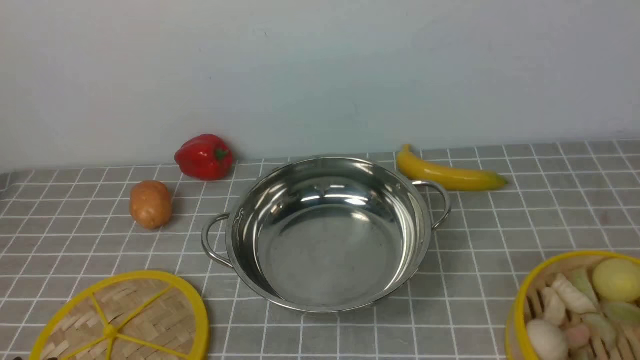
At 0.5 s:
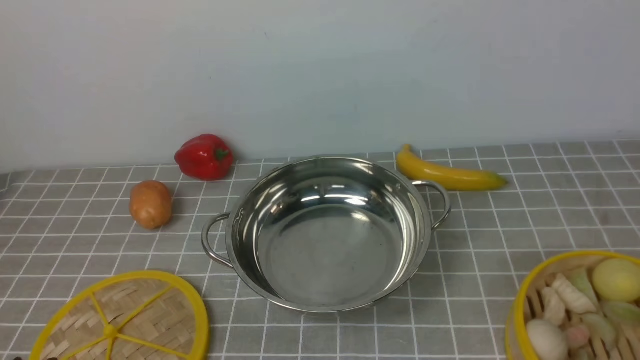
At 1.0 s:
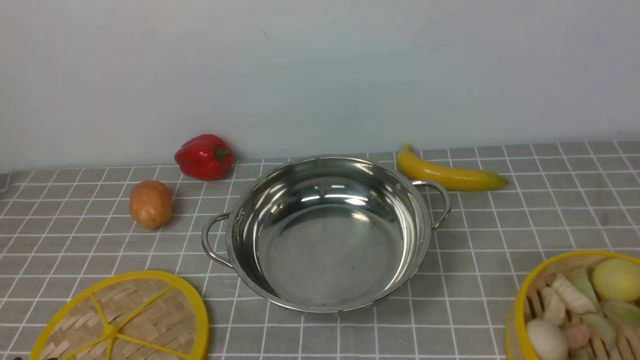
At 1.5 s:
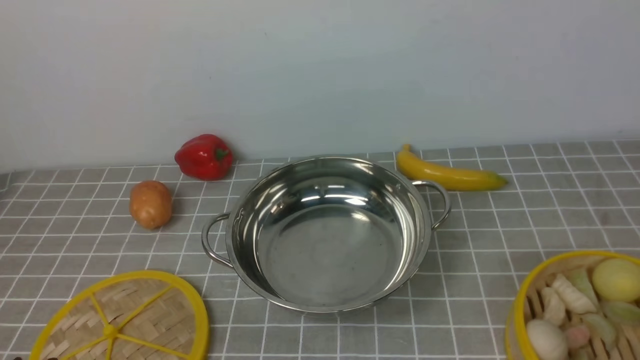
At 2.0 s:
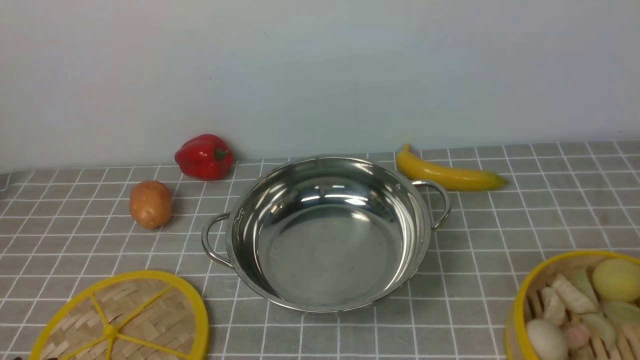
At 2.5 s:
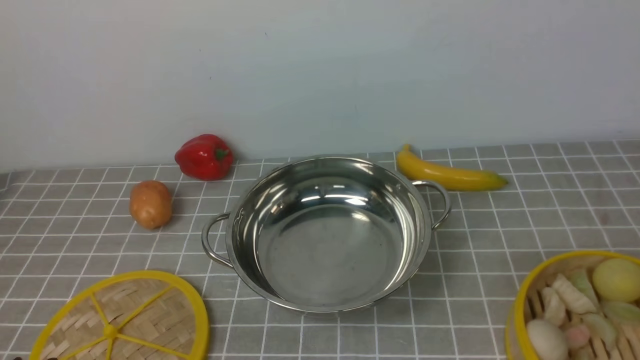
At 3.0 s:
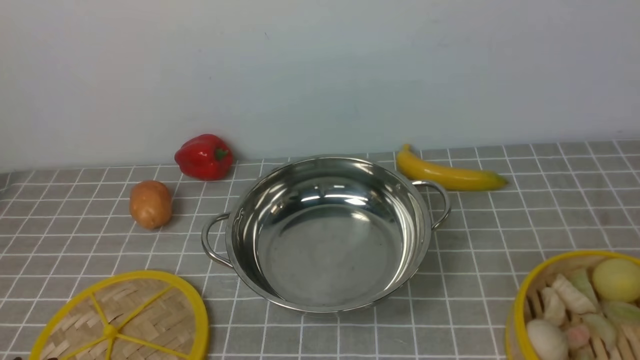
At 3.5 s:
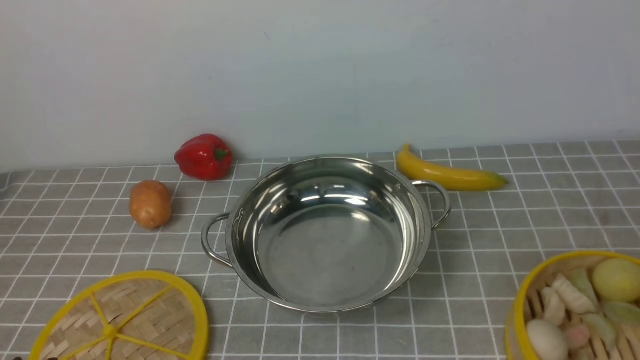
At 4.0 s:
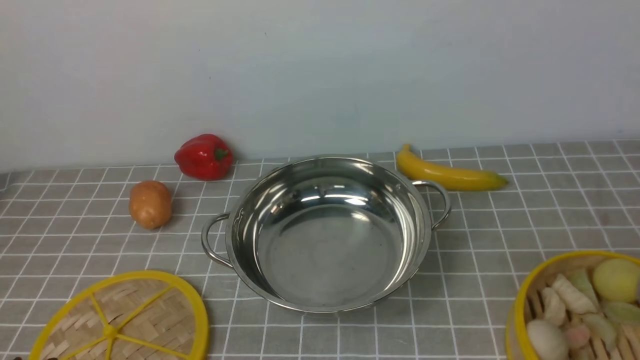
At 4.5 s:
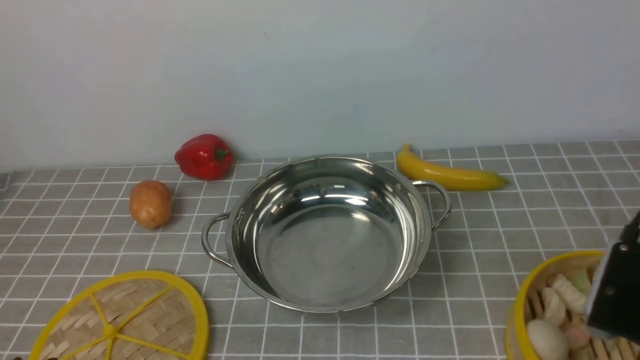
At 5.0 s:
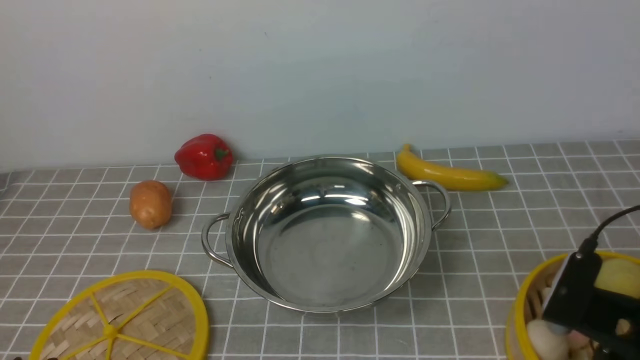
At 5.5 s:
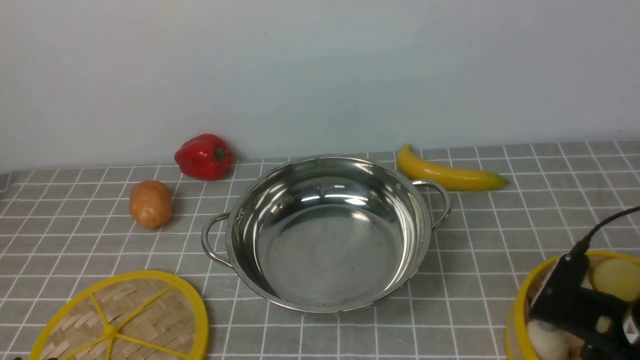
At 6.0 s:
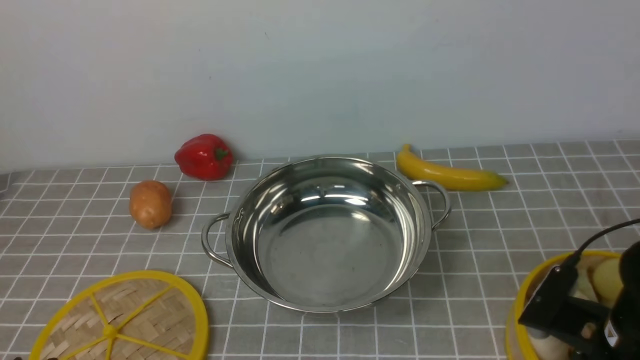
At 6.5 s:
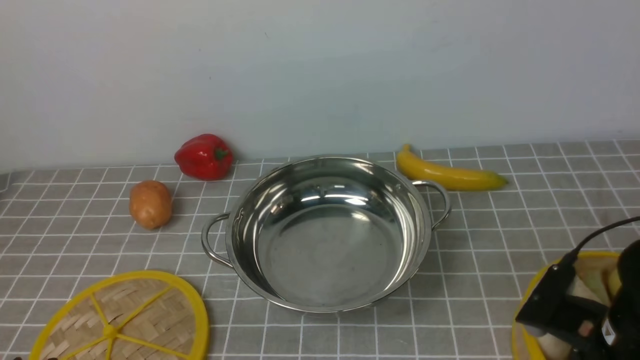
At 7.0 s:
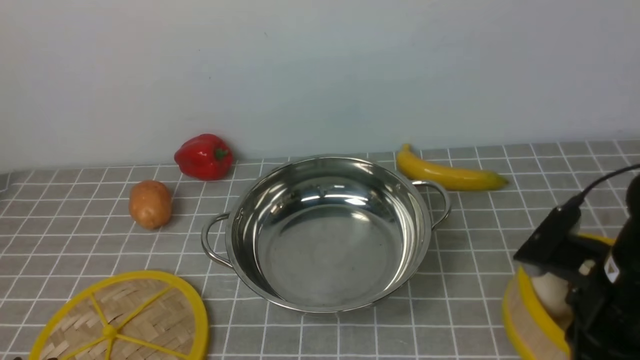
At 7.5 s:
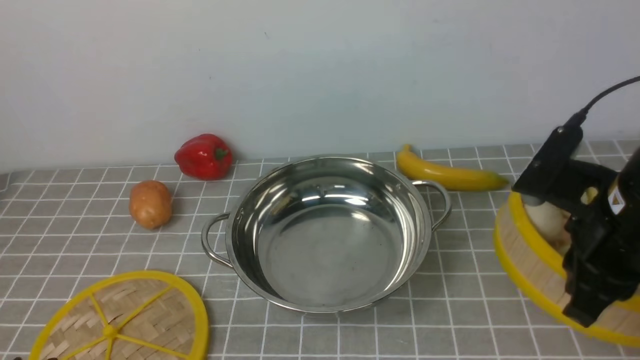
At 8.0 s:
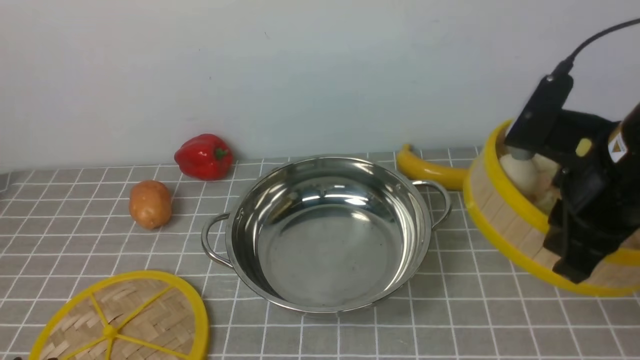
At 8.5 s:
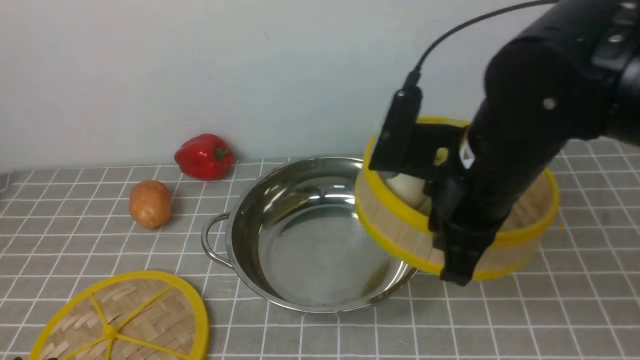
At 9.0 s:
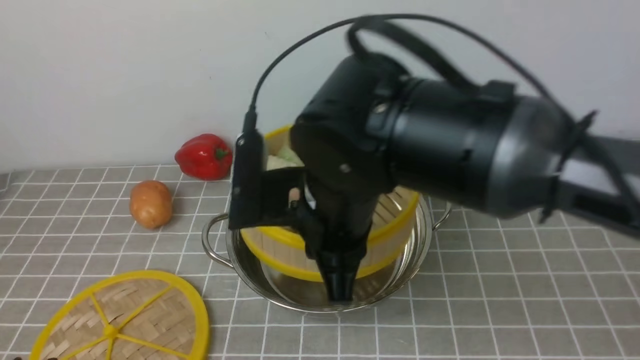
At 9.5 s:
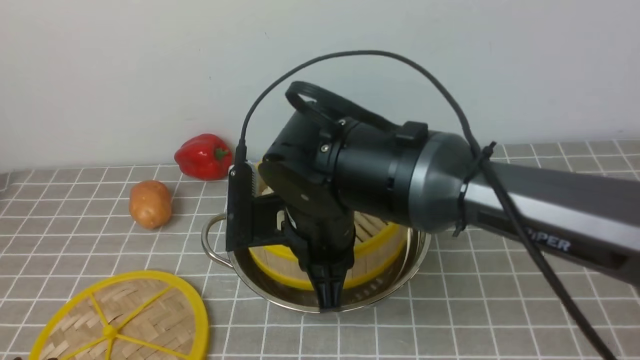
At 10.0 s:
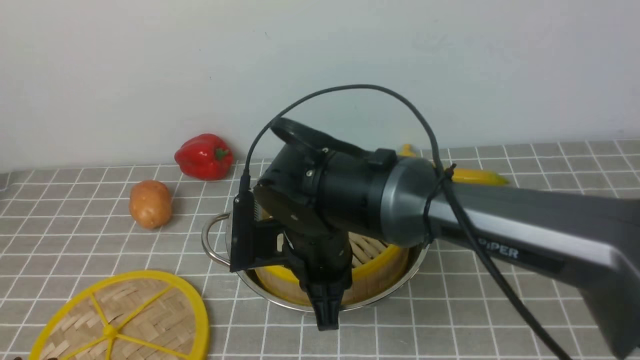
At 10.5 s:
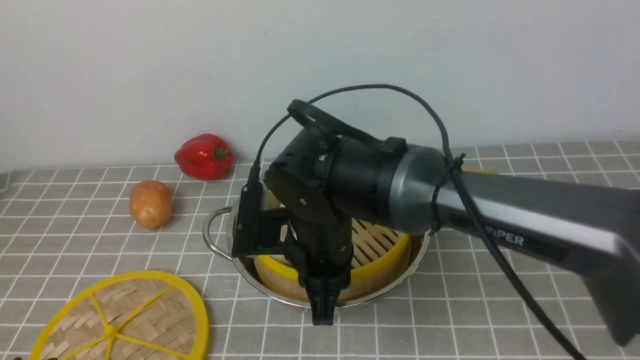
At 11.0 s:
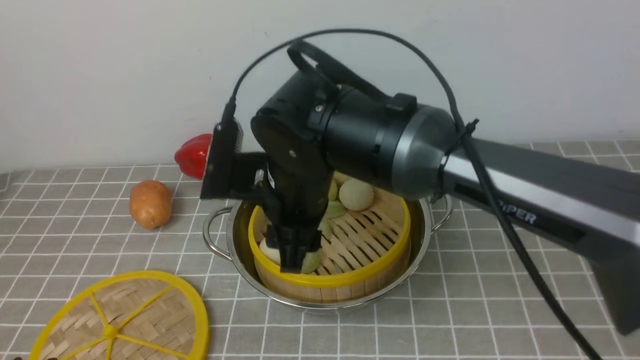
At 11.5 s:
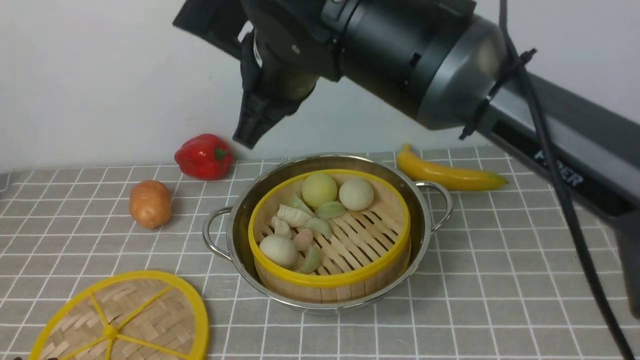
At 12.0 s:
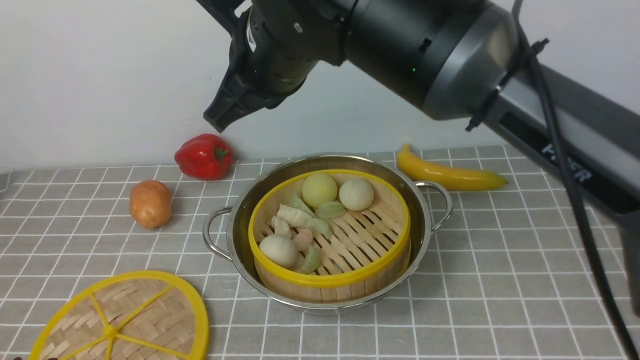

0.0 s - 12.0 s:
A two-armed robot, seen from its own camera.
Task of the whole recording: place the steamer in the pot on the grey tablecloth, and put the lid on the steamer.
Step, 0.0 s - 6.5 s: use the right arm to lift the steamer closest to it.
Step, 7.5 s - 10.5 s: use the right arm to put the steamer into the iron steamer pot in the middle.
4.0 s - 6.0 s: The right gripper heads downward and forward, covering approximately 10 cm.
6.0 s - 8.0 s: The right gripper travels upward and forward by roughly 15 cm, and closes its fingers.
8.0 s - 10.0 s: The right gripper heads to the left and downward, covering approximately 25 cm.
10.0 s - 12.0 s: The right gripper moves upward, some 15 cm, and opens and closes again.

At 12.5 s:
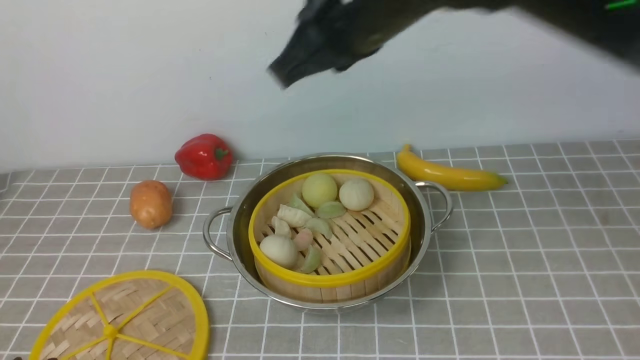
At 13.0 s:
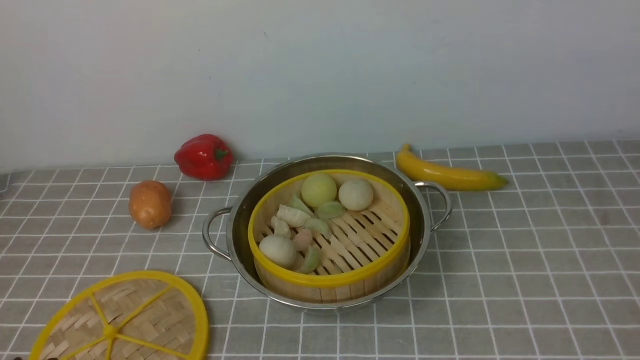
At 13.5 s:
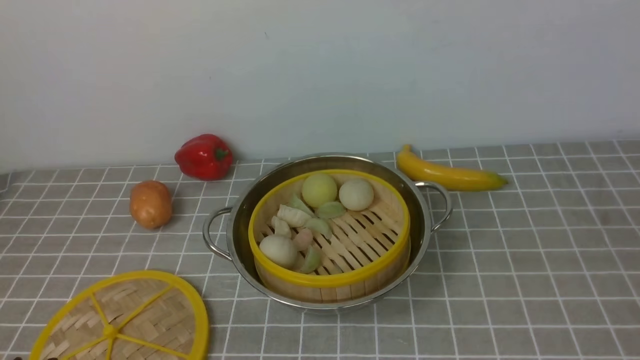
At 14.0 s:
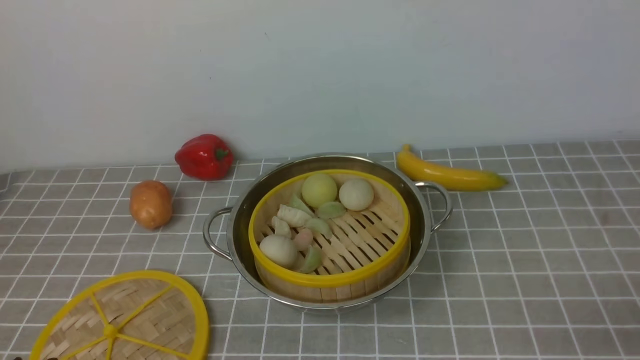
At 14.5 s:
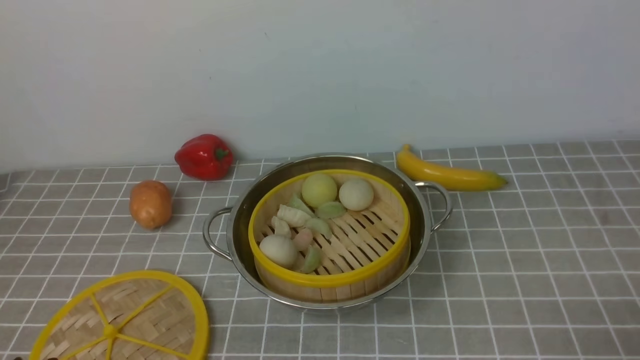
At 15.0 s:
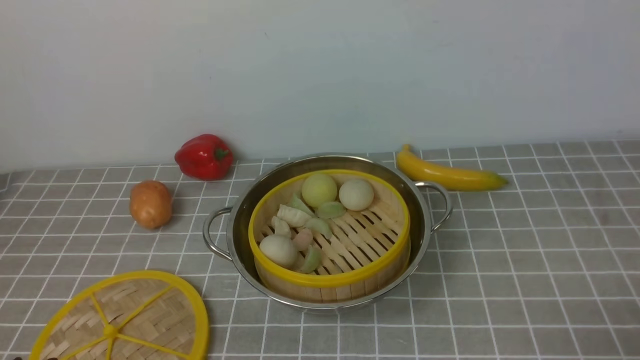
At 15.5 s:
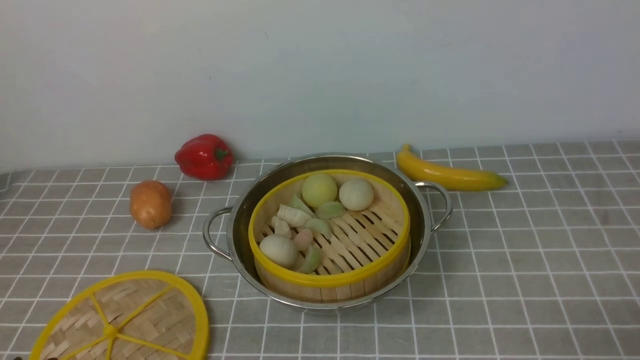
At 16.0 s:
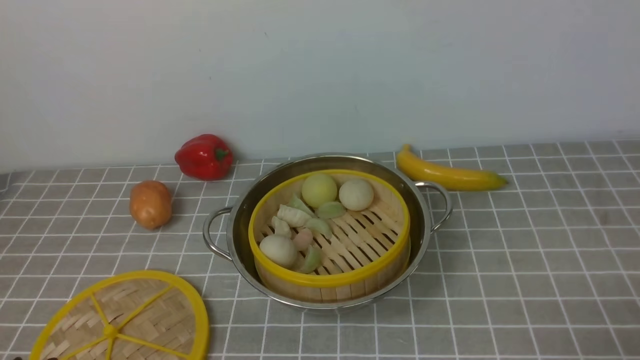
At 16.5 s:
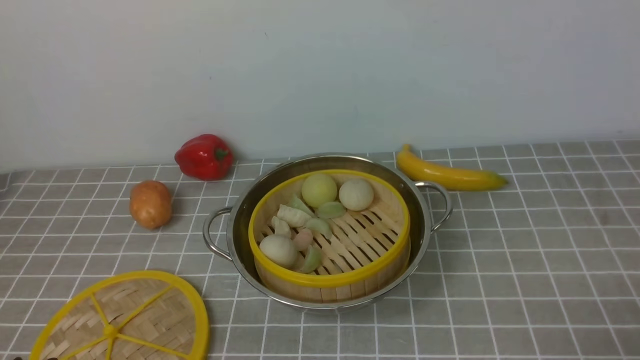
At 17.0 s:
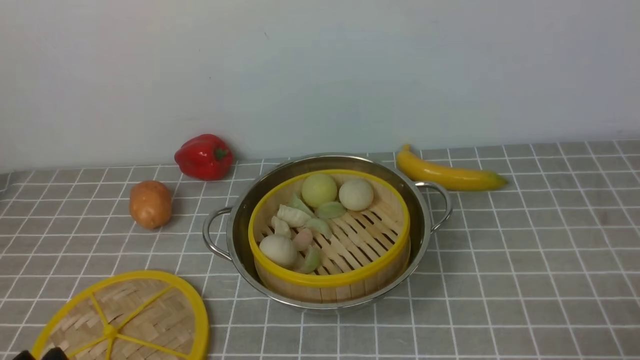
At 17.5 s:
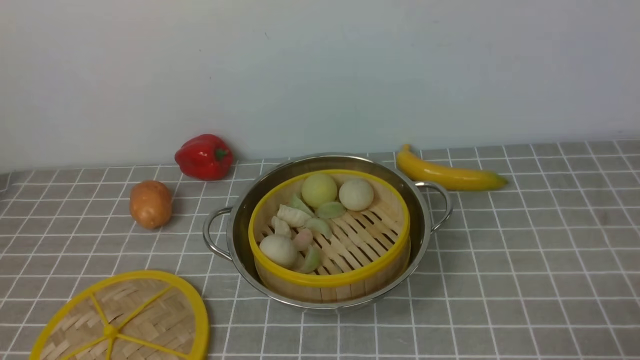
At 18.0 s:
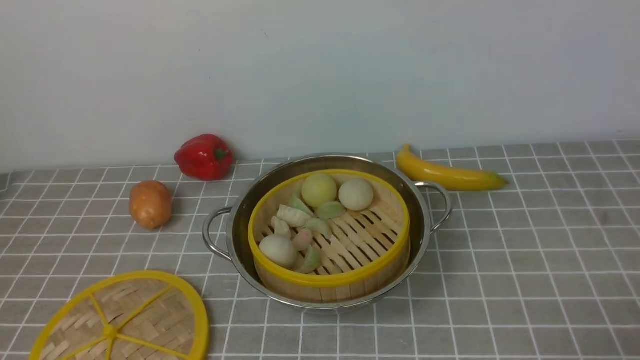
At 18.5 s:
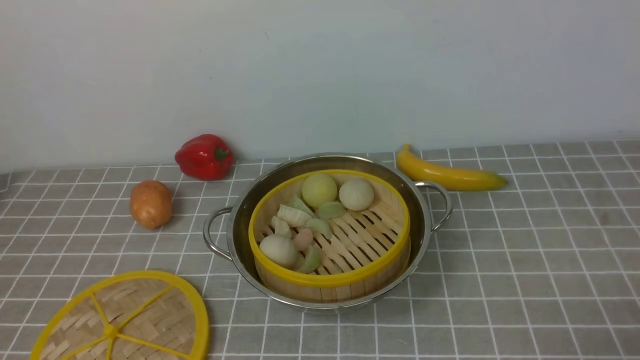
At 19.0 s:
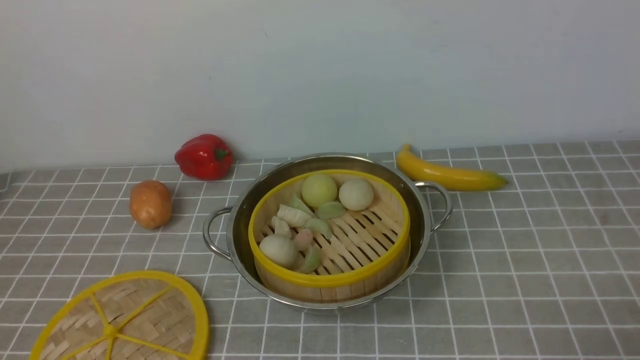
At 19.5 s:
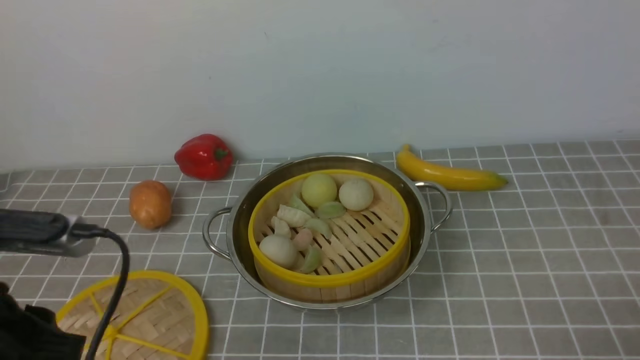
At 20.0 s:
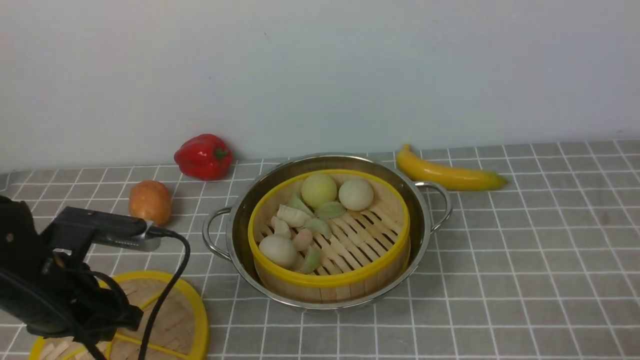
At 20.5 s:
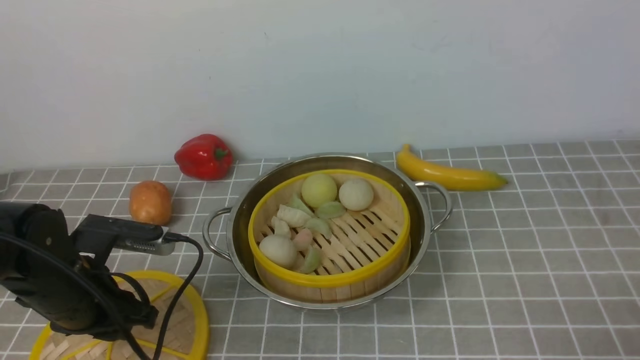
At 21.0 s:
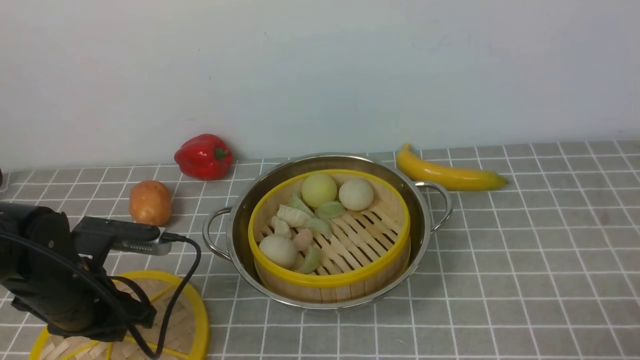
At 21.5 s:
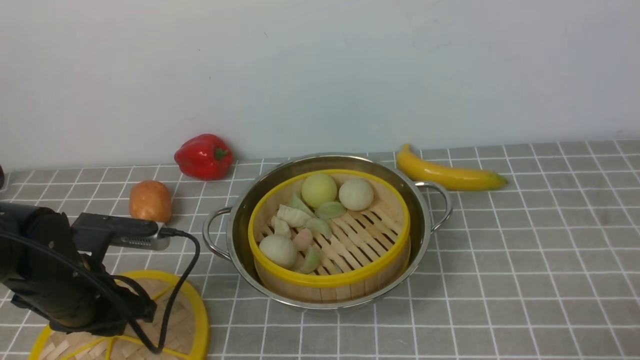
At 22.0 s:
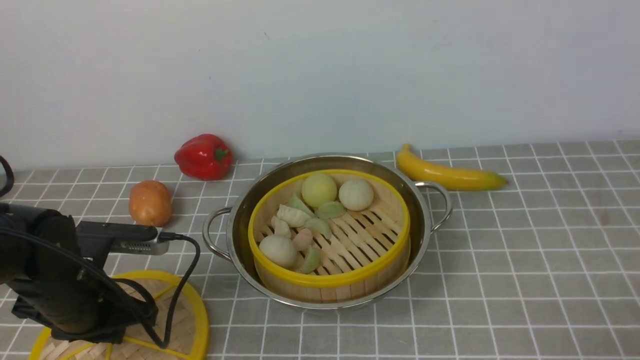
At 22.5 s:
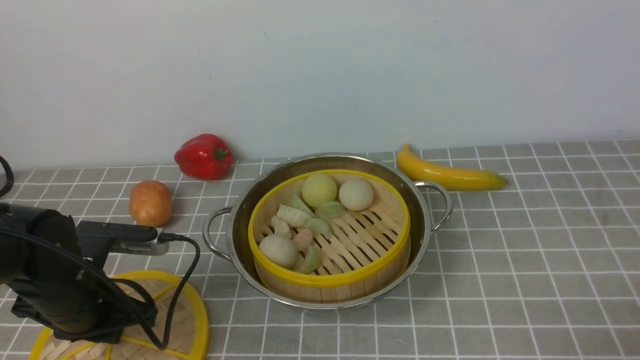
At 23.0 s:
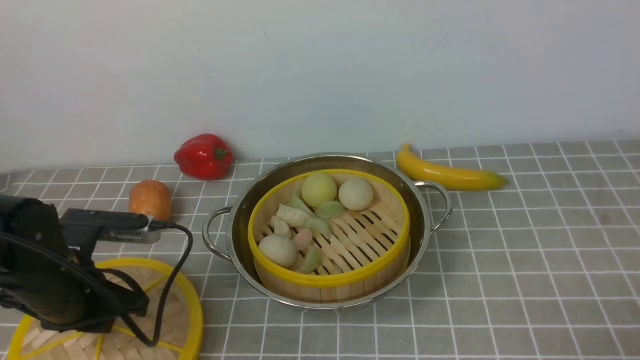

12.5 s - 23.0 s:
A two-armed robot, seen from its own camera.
Task of the whole recording: place the steamer in the pot on the grey tablecloth, and put the lid on the steamer.
Step, 12.5 s - 23.0 s: use the left arm to lift the lid of the steamer.
12.5 s - 14.5 s: The right gripper travels to the right, downward and backward by approximately 40 cm, and opens up.
19.0 s - 21.0 s: The left gripper moves forward and downward, about 25 cm.
21.0 s - 23.0 s: The grippers stay close to where they were, moving slightly.
